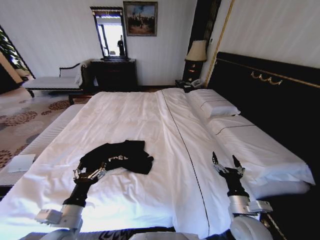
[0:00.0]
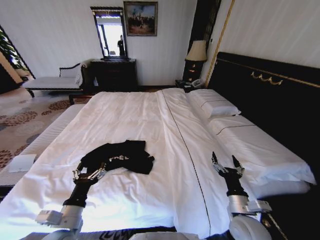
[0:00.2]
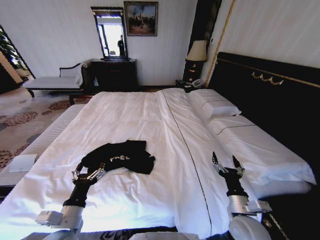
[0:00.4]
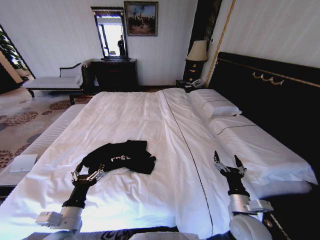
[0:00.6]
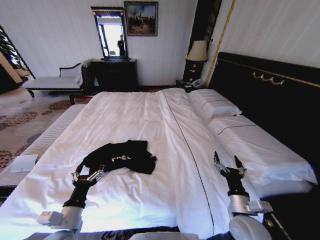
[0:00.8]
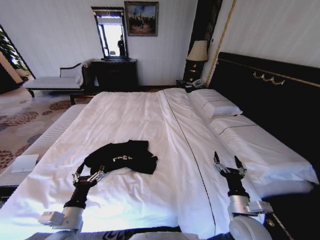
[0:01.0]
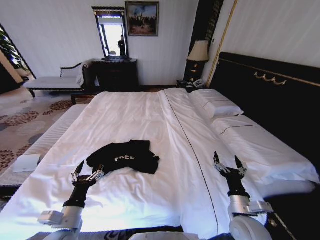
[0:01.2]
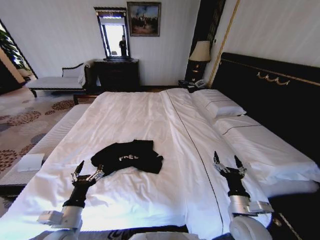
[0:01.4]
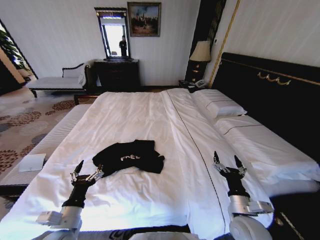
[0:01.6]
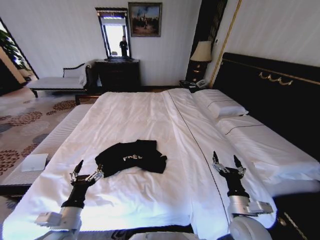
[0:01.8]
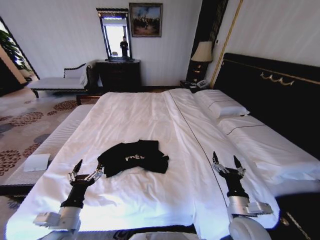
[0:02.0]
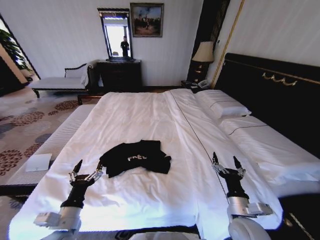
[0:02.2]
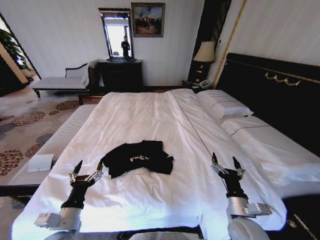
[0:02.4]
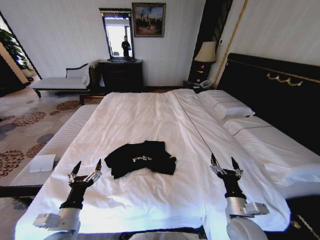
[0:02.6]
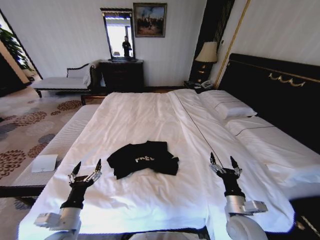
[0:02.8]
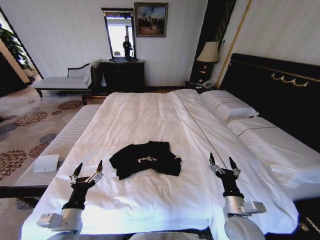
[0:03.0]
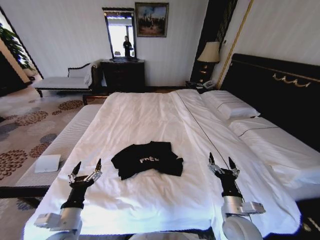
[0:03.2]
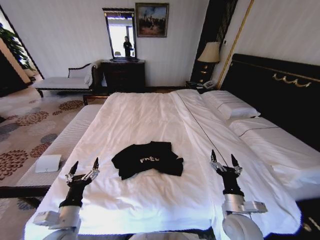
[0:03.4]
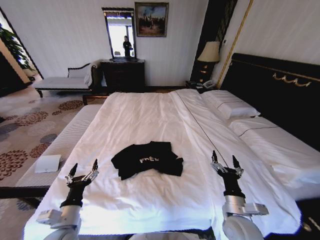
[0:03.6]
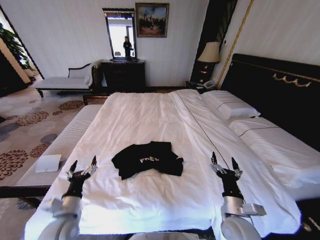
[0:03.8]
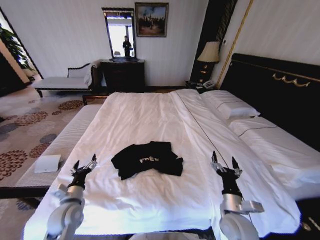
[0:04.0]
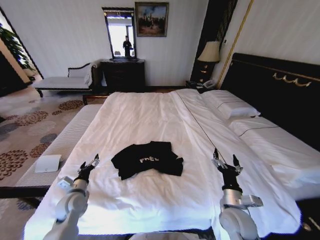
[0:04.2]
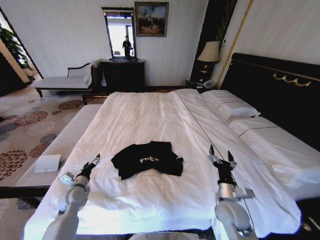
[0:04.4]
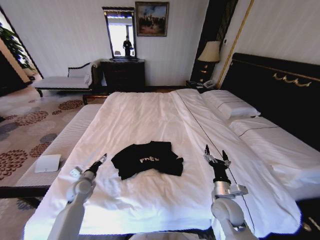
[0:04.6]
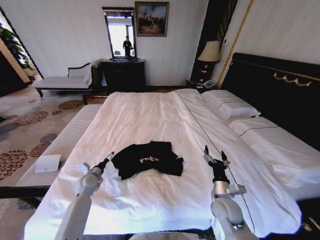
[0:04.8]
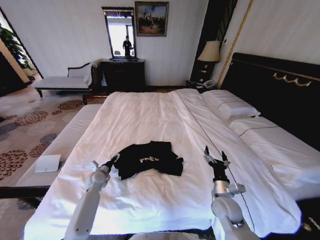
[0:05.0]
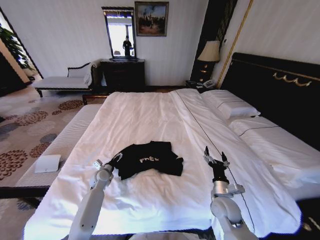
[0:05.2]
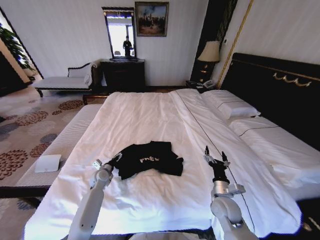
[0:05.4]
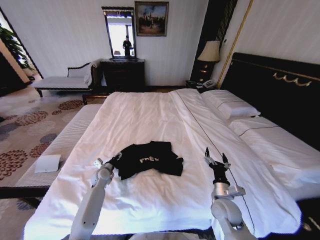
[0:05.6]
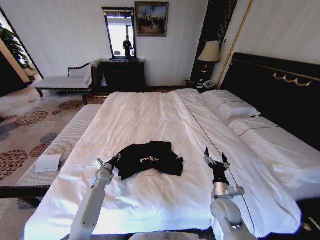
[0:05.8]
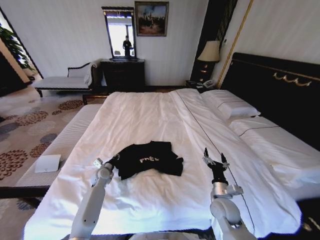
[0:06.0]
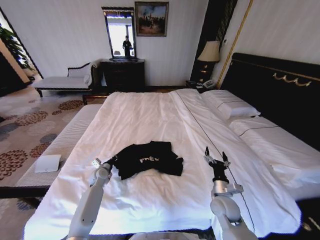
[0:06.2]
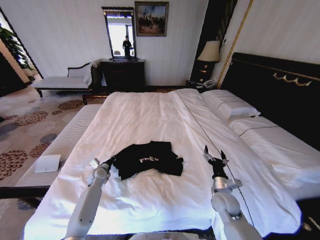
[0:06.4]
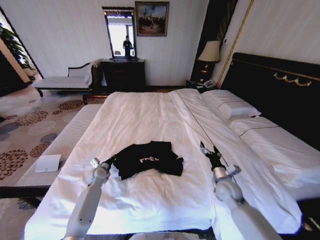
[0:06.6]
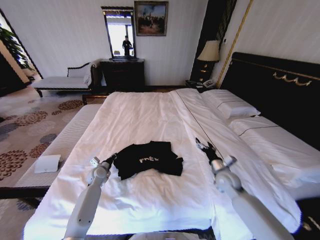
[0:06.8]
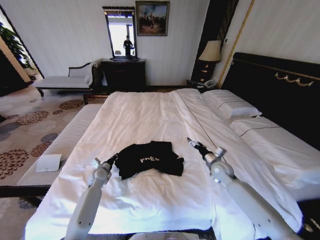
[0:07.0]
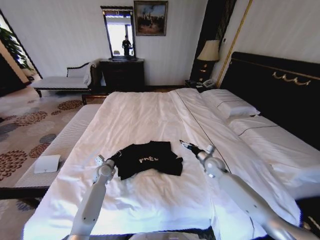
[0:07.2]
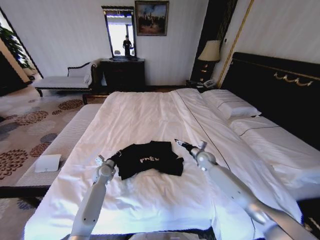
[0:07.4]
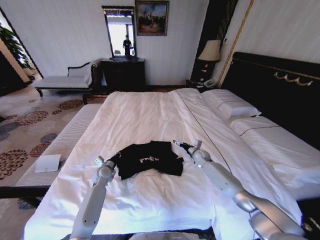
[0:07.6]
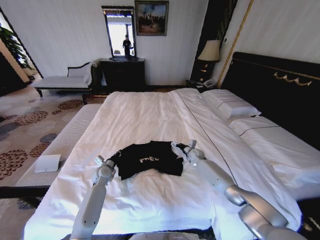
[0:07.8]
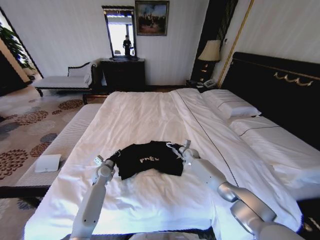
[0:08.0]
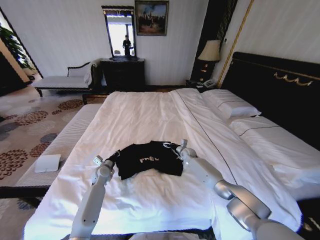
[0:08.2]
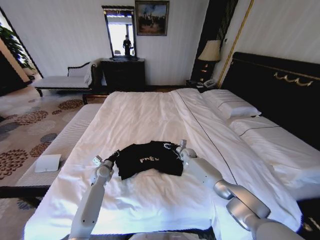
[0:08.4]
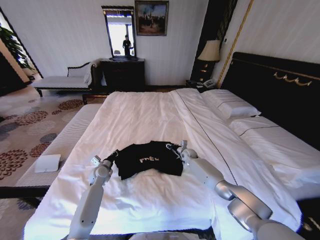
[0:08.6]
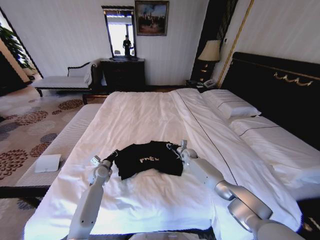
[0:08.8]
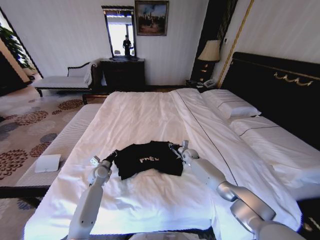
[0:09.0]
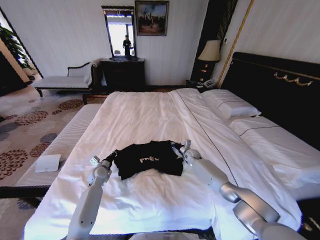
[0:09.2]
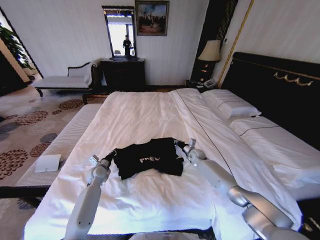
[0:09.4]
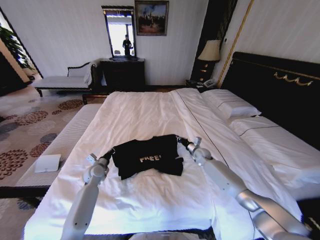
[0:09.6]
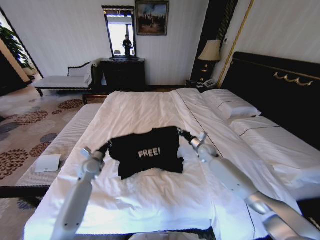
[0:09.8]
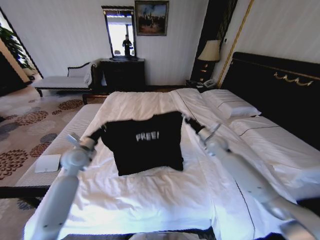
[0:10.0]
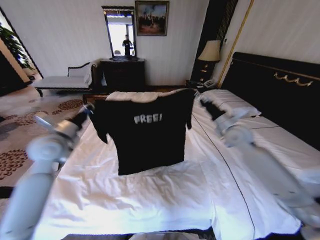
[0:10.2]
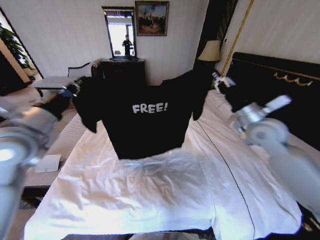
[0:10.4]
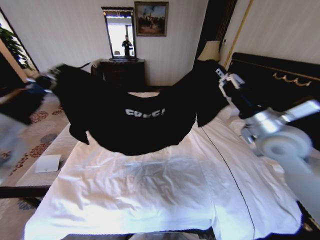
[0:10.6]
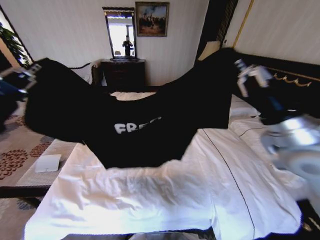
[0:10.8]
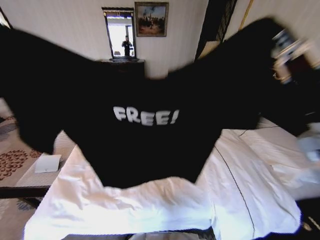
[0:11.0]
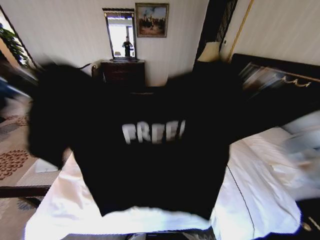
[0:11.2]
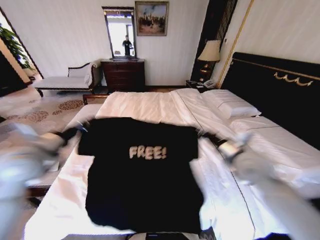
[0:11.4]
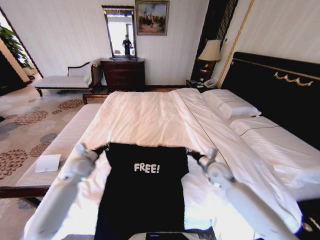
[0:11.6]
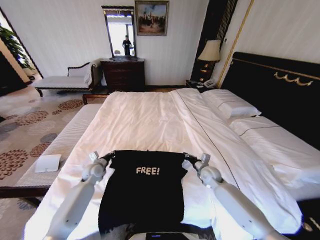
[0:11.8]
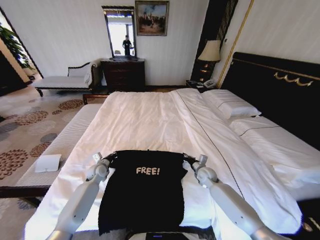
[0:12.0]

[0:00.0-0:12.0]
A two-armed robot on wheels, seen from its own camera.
Task of the whole recording: Fold the clothes on the bed.
0:03.0 to 0:04.4: The left gripper heads forward, to the left and downward, covering roughly 20 cm. The right gripper goes some 5 cm forward.
0:04.4 to 0:06.0: The left gripper heads forward, to the right and downward, covering roughly 15 cm, and closes up.
0:06.0 to 0:07.6: The right gripper moves forward, about 30 cm.
0:07.6 to 0:09.0: The right gripper is displaced to the left by roughly 5 cm, and closes up.
0:09.0 to 0:10.4: The right gripper is displaced upward and backward by roughly 40 cm. Meanwhile the left gripper heads upward, covering about 40 cm.
0:10.4 to 0:12.0: Both grippers travel together downward, approximately 35 cm.

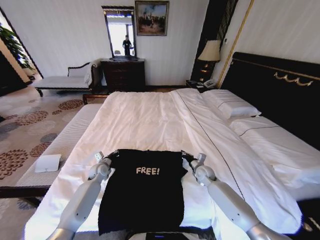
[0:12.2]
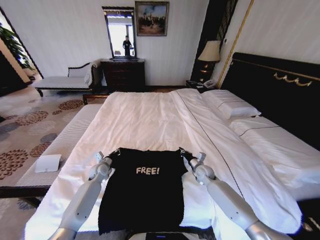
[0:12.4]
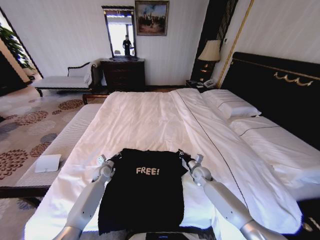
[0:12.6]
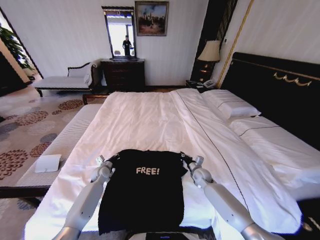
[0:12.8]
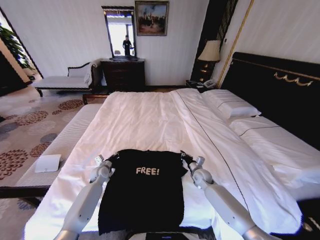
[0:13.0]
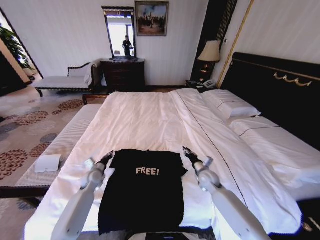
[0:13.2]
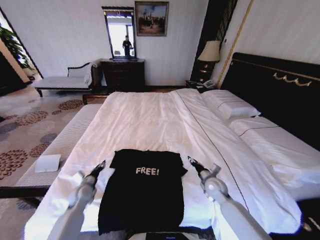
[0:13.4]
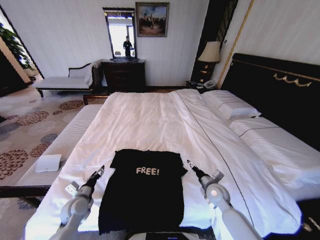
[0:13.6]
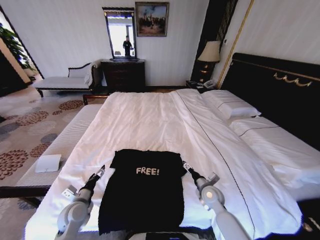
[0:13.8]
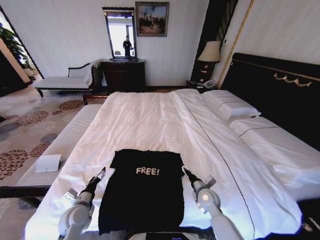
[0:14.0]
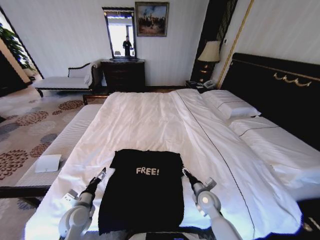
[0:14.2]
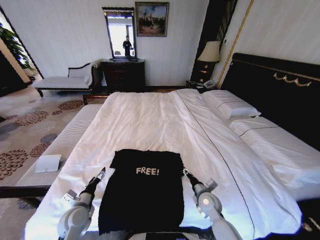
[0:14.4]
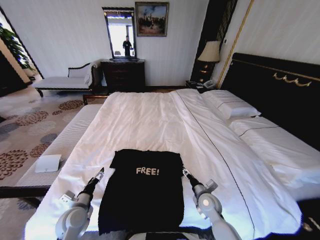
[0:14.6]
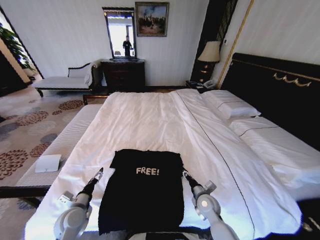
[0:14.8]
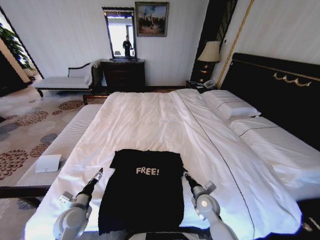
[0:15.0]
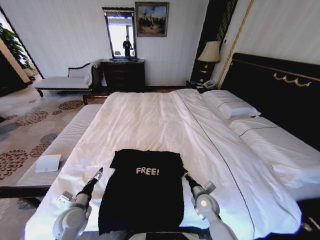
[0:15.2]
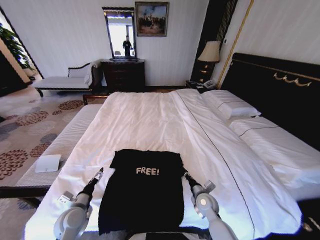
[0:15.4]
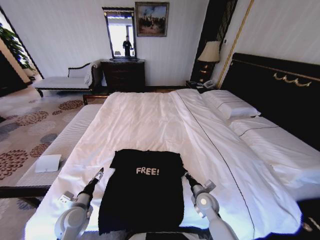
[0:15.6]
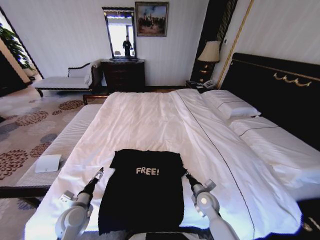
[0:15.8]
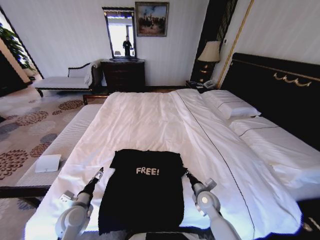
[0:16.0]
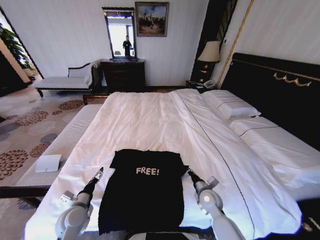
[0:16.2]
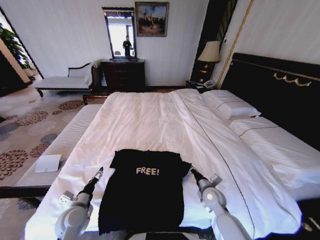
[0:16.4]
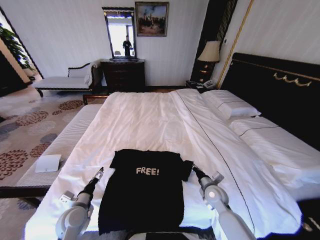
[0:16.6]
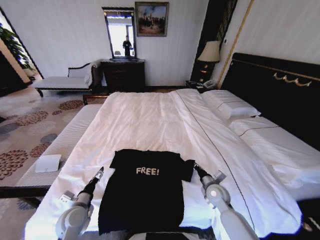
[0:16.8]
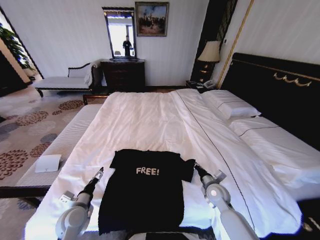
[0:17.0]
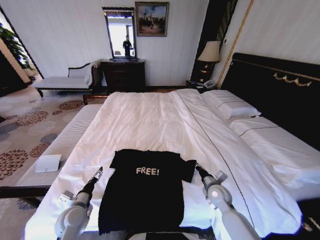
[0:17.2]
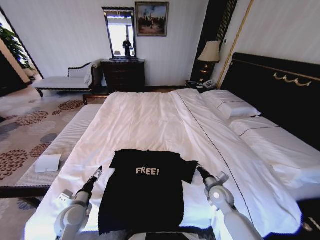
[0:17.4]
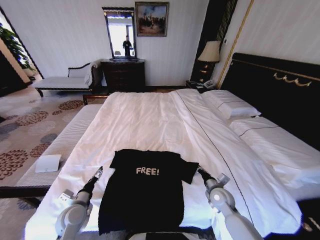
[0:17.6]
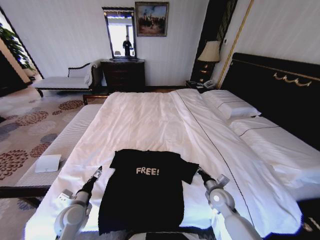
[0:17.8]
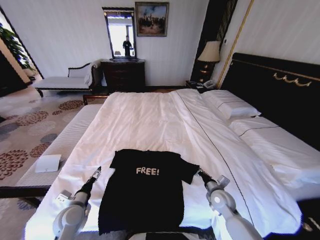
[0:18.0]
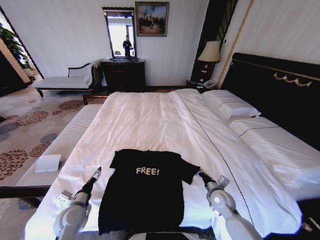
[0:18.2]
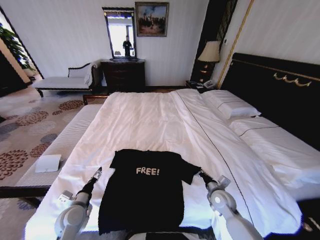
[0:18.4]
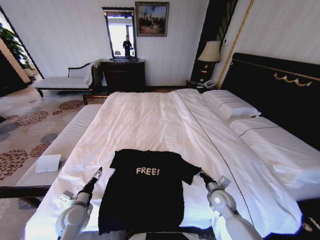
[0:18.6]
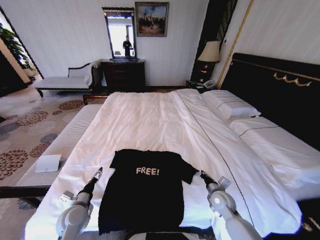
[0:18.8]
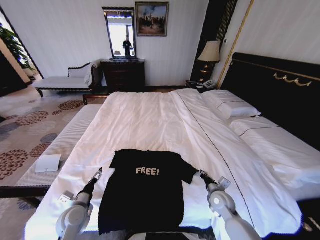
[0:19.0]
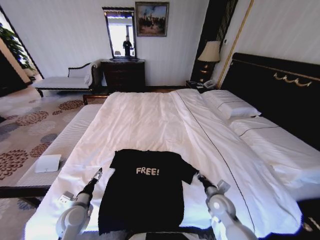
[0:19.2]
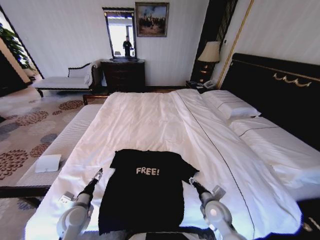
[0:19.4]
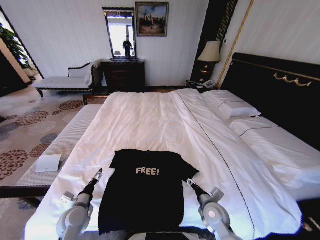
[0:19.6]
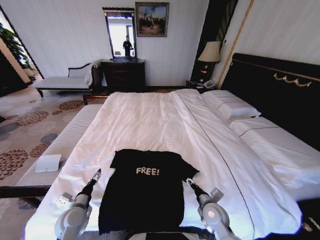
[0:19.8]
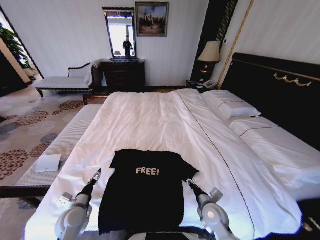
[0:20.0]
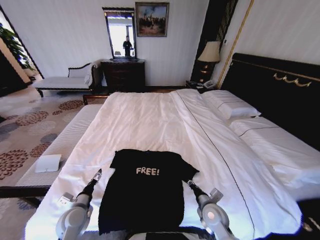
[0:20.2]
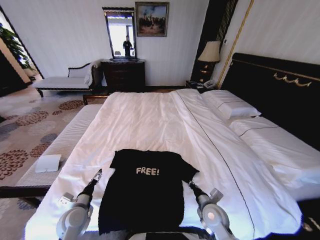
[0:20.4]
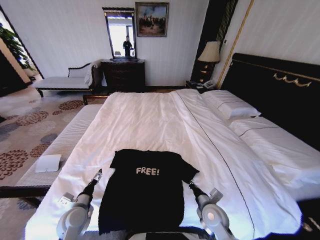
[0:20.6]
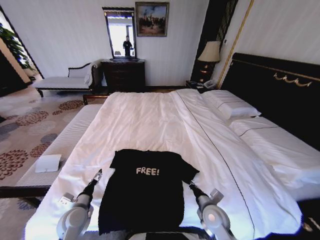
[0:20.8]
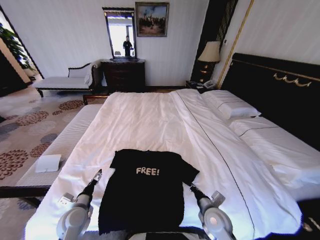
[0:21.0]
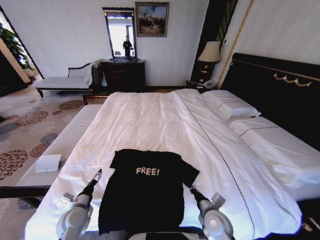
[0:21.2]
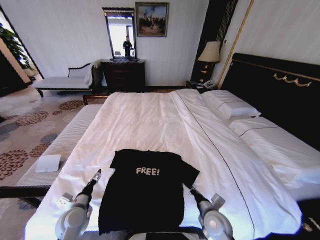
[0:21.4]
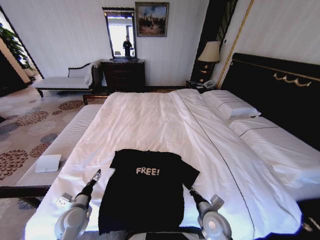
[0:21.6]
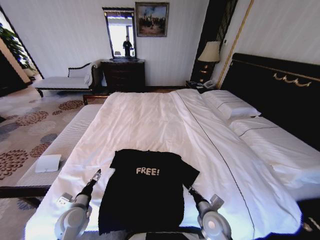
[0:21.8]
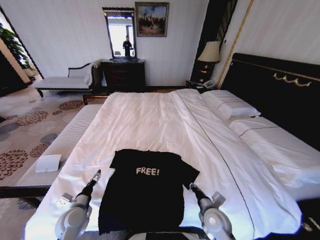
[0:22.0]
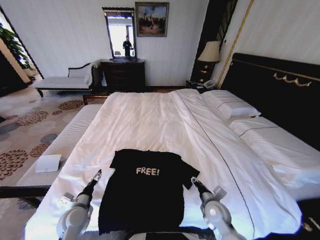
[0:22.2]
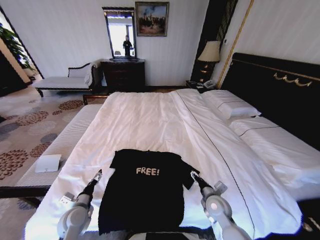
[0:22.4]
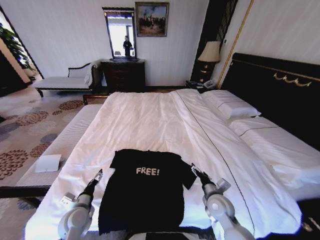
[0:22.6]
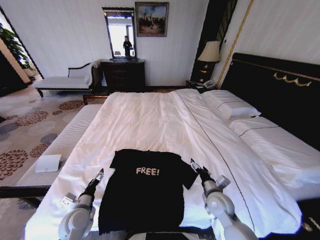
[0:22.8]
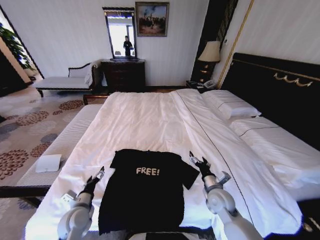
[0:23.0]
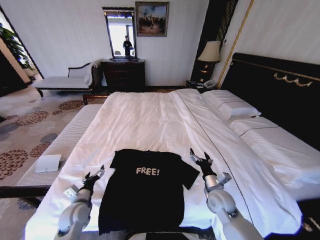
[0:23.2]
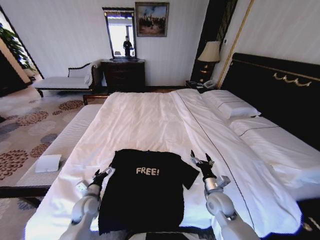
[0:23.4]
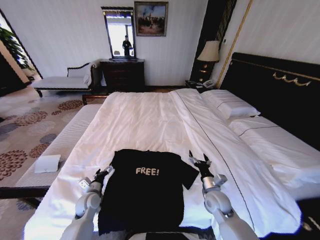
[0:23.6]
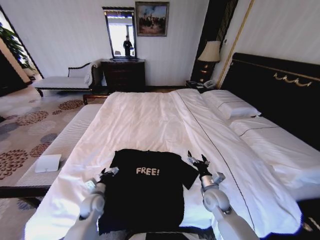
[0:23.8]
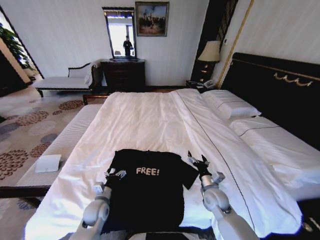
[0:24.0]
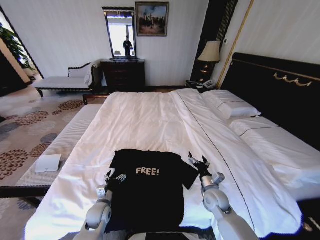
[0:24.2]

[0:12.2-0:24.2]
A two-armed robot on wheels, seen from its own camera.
Task of the whole recording: Fold the clothes on the bed.
0:12.2 to 0:13.8: The right gripper heads backward, covering about 10 cm, and opens its fingers; the left gripper is displaced backward by approximately 20 cm, and opens its fingers.
0:13.8 to 0:15.2: The right gripper closes.
0:15.2 to 0:16.6: The right gripper changes place by some 5 cm.
0:16.6 to 0:18.2: The grippers make only small movements.
0:18.2 to 0:19.8: The right gripper shifts some 10 cm to the left and backward, and opens.
0:19.8 to 0:21.2: The right gripper closes up.
0:21.2 to 0:22.6: The right gripper heads forward, covering approximately 5 cm, and opens its fingers.
0:22.6 to 0:24.2: The left gripper travels downward and to the right by some 10 cm.
